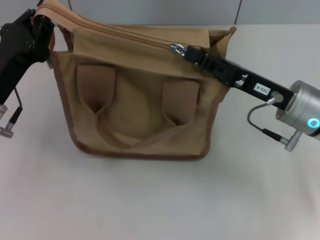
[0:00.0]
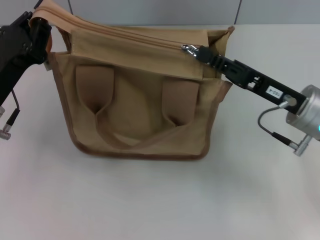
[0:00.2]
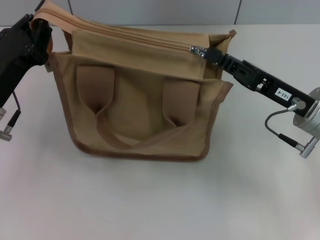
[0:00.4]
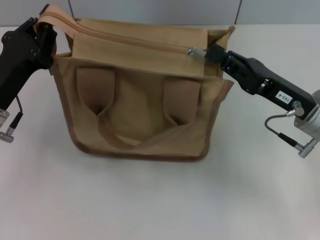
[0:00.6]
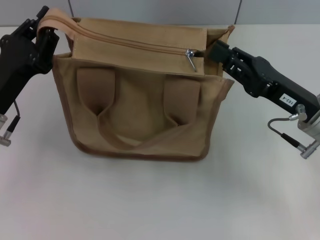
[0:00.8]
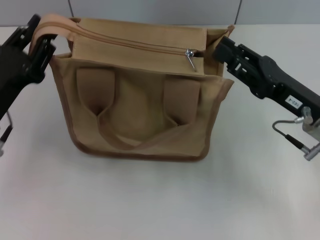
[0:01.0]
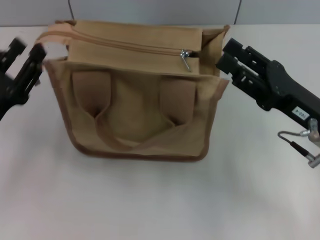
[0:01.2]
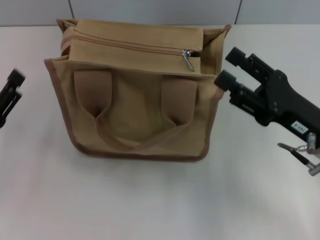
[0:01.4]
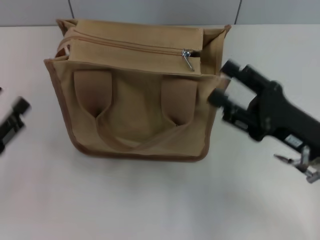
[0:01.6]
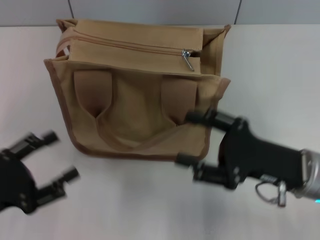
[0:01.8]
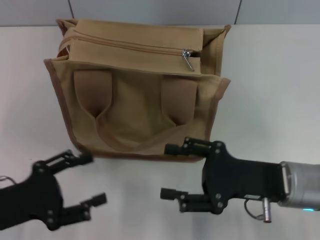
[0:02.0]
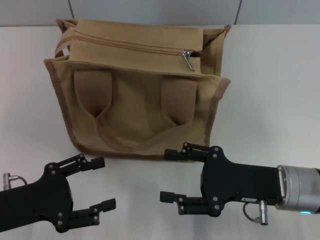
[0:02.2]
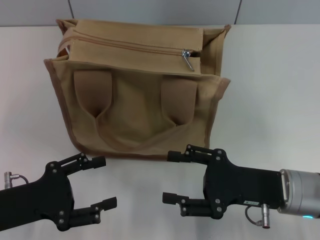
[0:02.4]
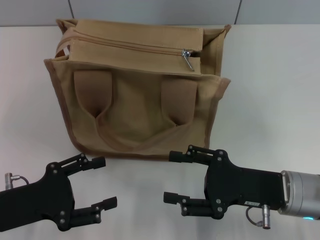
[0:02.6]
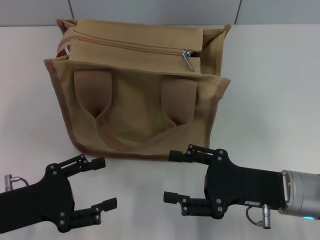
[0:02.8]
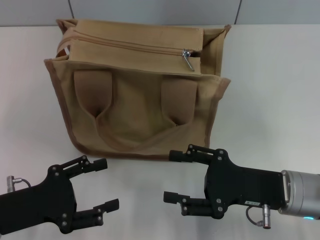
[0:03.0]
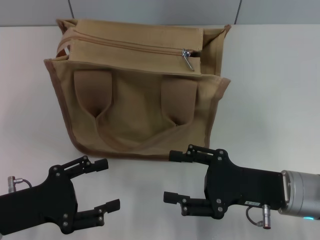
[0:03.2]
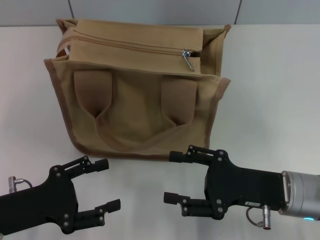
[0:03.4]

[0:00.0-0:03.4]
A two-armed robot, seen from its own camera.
Step, 0:01.0 to 0:01.4: Grab the zipper with your left hand.
0:00.0 to 0:01.6: The left gripper goes roughly 10 cm backward and to the left, and opens up; the right gripper travels backward by some 5 cm, and opens up.

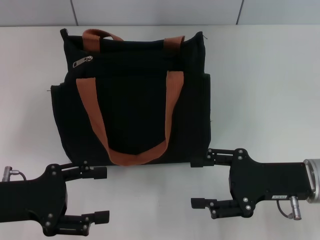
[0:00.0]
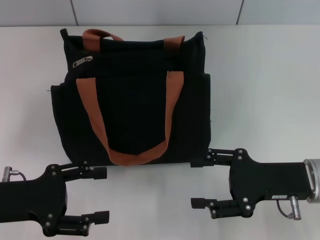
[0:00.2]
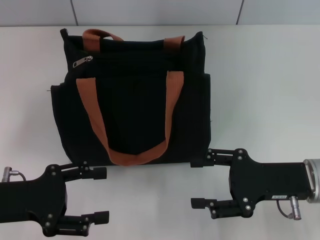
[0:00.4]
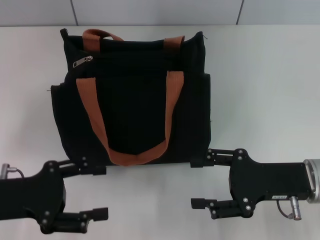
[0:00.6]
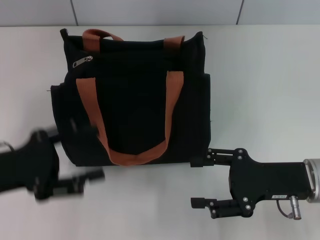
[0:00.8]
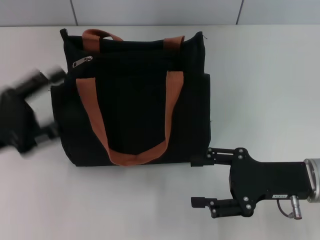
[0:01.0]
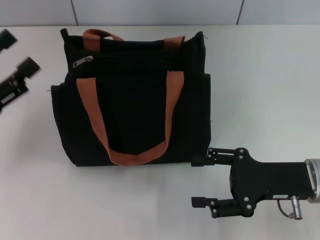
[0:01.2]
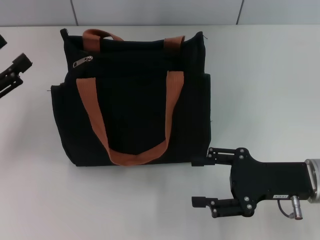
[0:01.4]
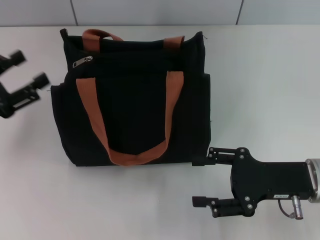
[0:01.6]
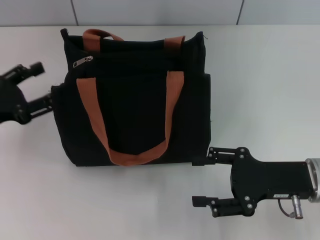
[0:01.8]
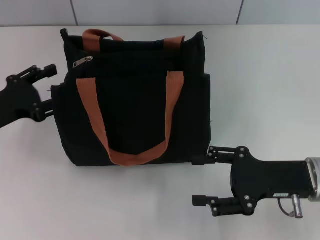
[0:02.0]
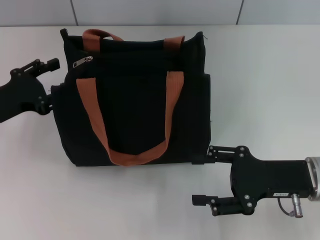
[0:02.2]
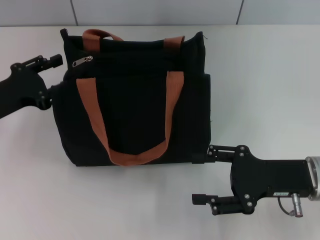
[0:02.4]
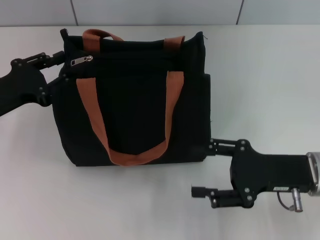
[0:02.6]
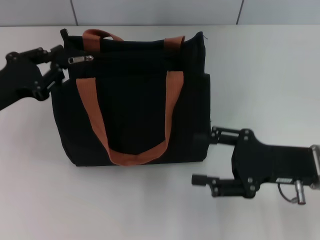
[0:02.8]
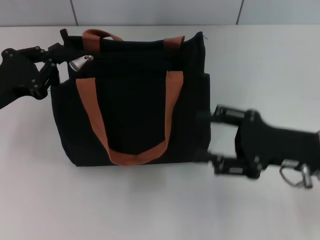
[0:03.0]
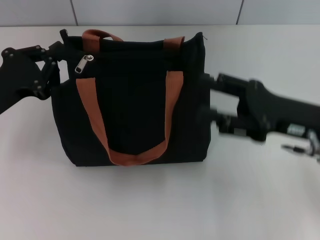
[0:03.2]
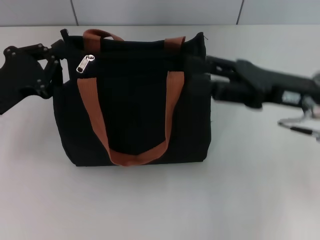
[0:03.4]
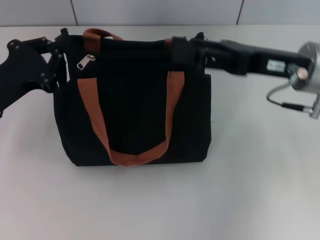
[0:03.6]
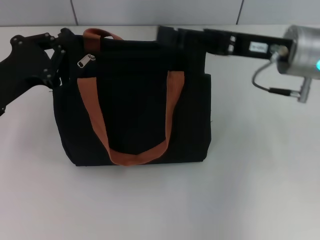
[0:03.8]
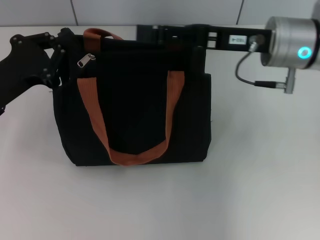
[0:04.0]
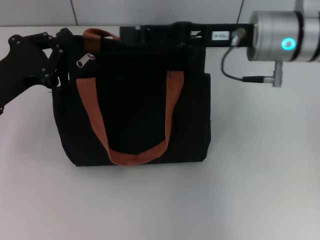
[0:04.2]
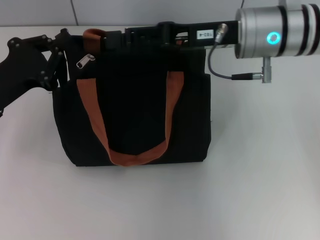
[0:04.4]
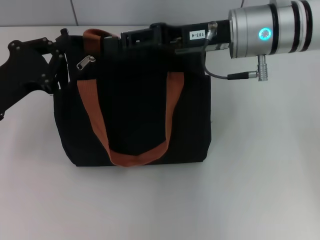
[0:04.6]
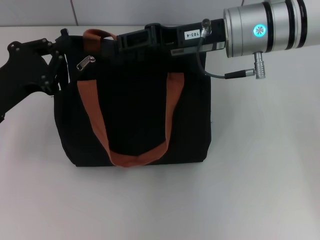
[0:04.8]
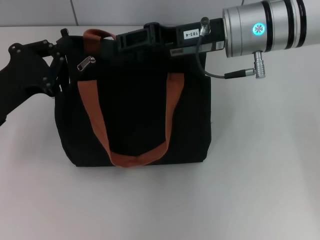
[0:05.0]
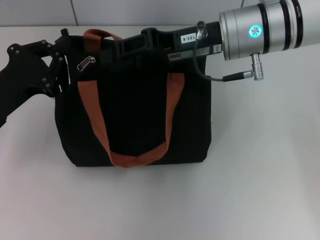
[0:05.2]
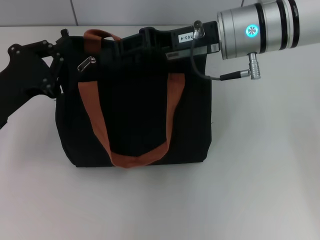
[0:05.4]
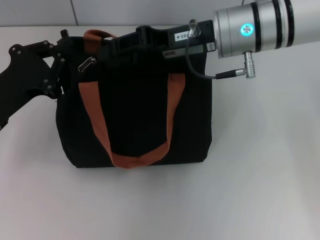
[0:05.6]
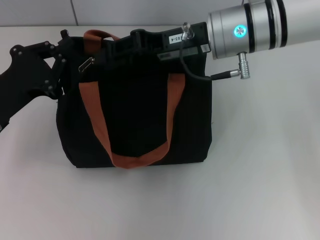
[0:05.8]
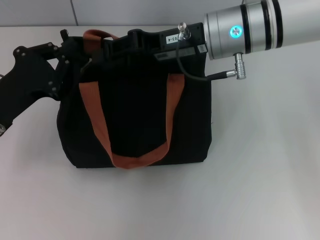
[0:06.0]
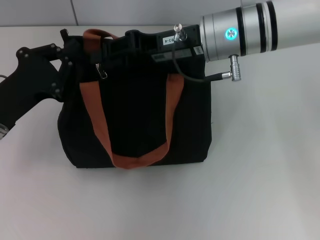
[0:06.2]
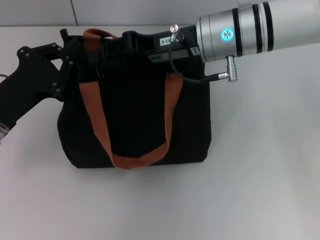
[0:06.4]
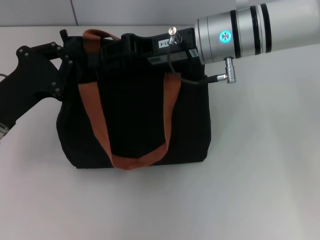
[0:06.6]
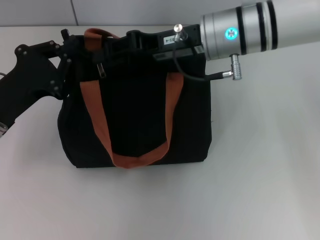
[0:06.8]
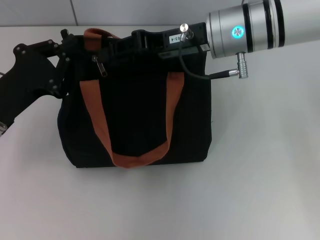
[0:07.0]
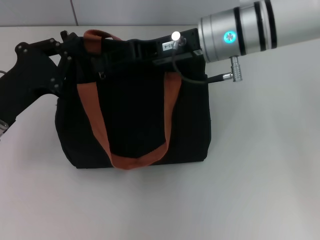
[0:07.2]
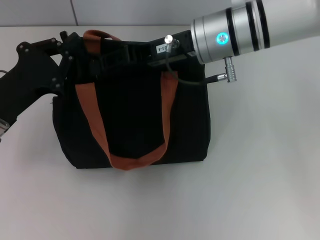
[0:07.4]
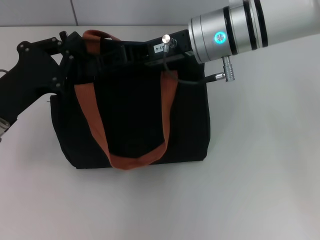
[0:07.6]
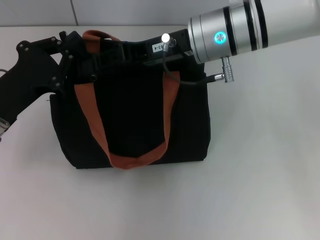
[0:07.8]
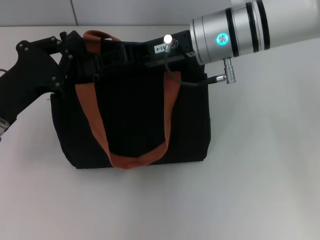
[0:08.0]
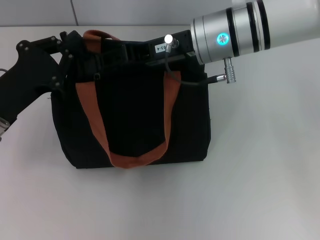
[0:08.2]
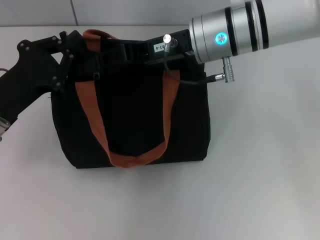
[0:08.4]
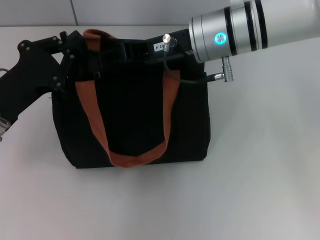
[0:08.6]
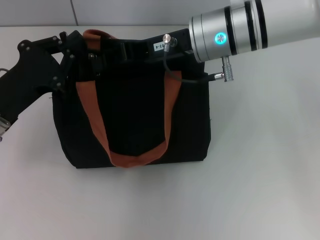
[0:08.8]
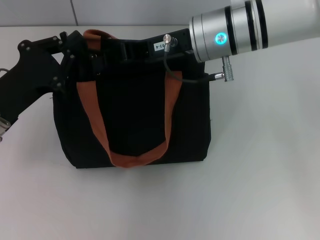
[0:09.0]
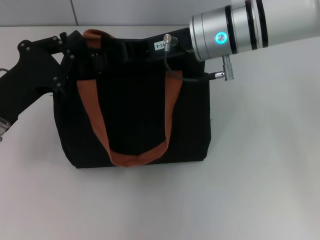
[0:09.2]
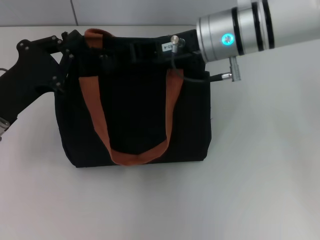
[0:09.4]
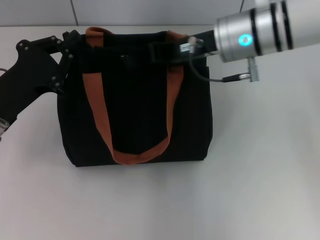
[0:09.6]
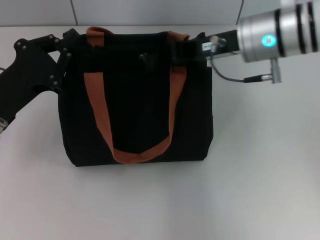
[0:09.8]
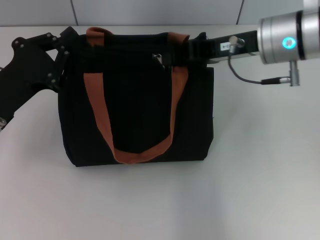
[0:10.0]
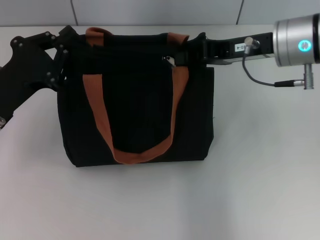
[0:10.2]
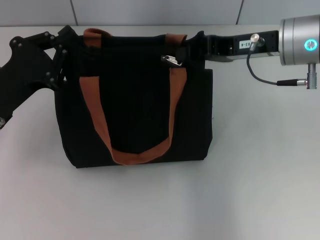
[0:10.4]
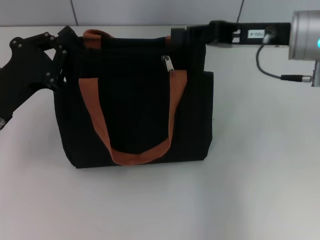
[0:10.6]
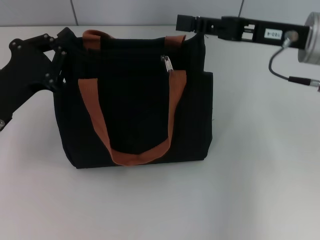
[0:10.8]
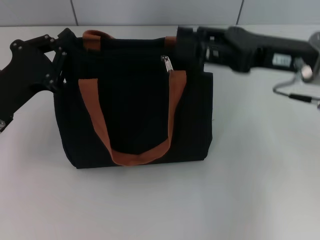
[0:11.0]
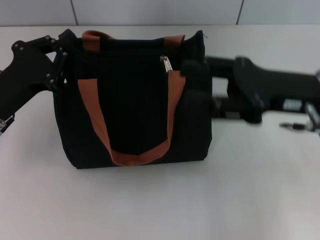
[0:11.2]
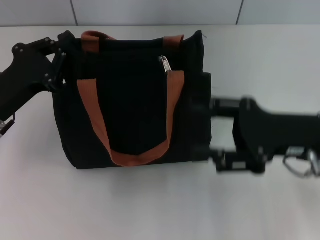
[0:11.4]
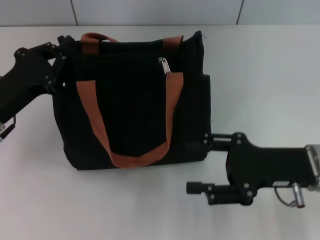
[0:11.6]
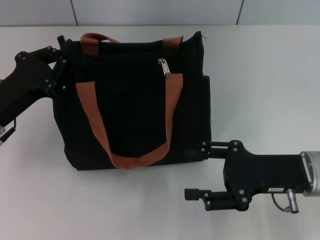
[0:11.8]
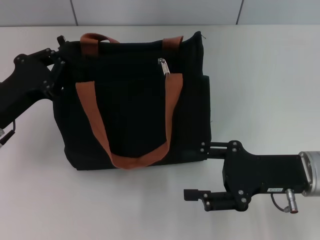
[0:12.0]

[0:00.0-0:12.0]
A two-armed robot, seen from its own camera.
Step, 0:00.0 to 0:10.4: Pull up the zipper with your right hand.
0:00.0 to 0:01.6: The left gripper moves to the left, some 5 cm.
0:01.6 to 0:03.0: The left gripper changes place by some 5 cm, and closes its fingers.
0:03.0 to 0:04.4: The right gripper goes about 20 cm forward, to the left and upward.
0:04.4 to 0:06.0: The right gripper closes its fingers.
0:06.0 to 0:07.6: The grippers make only small movements.
0:07.6 to 0:09.0: The right gripper closes its fingers.
0:09.0 to 0:10.4: The right gripper goes roughly 10 cm to the right.
0:10.4 to 0:12.0: The right gripper moves downward and backward, about 15 cm, and opens.

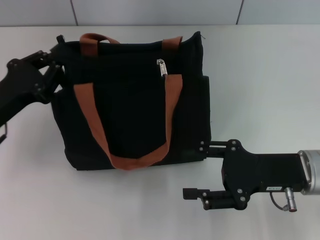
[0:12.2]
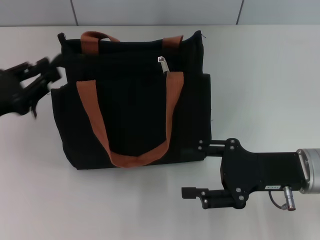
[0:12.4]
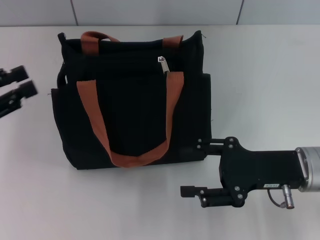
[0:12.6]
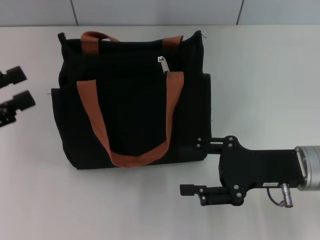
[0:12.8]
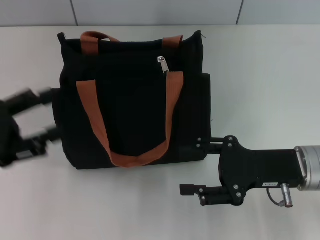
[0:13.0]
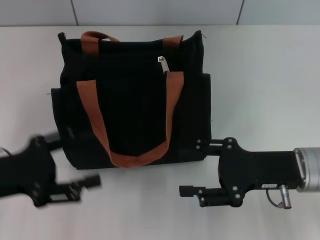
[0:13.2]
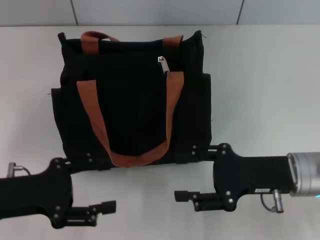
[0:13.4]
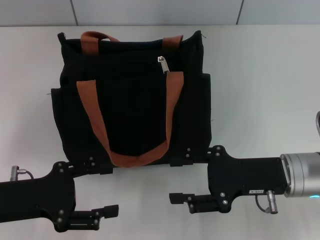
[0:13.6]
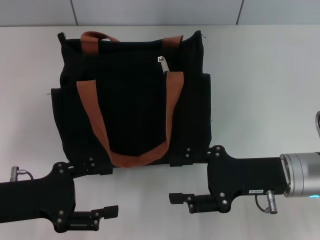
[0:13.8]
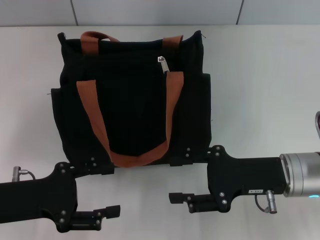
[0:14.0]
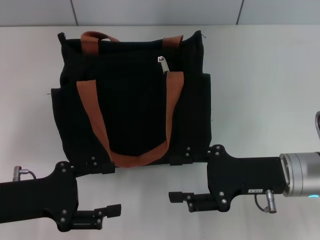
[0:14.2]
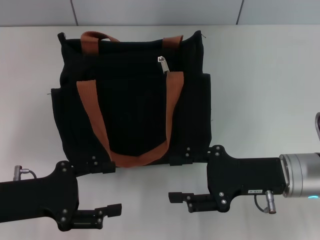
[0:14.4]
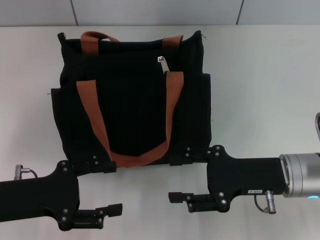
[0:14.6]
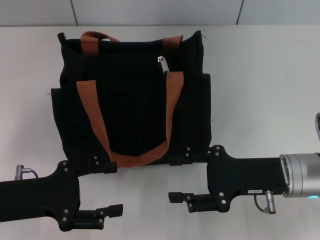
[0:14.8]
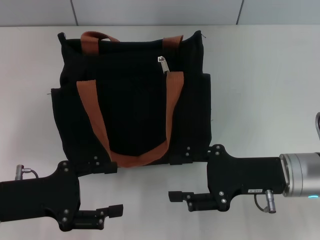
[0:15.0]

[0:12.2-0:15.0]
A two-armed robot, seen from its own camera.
0:12.2 to 0:13.6: The left gripper goes roughly 5 cm backward, reaches roughly 5 cm to the left, then returns, and opens.
0:13.6 to 0:15.0: Neither gripper changes place.
